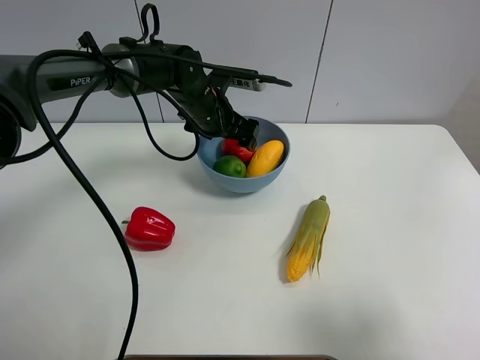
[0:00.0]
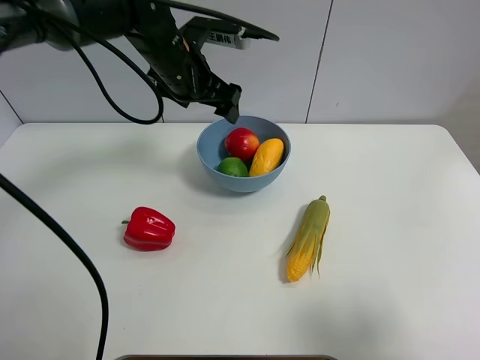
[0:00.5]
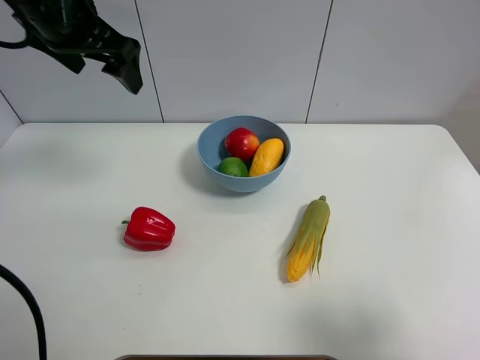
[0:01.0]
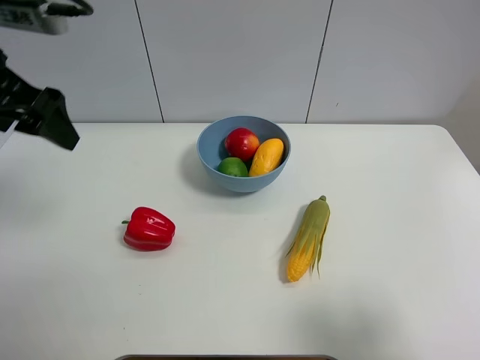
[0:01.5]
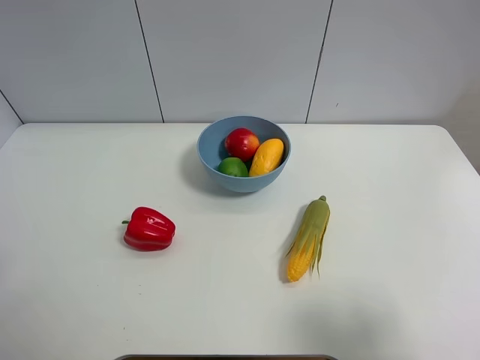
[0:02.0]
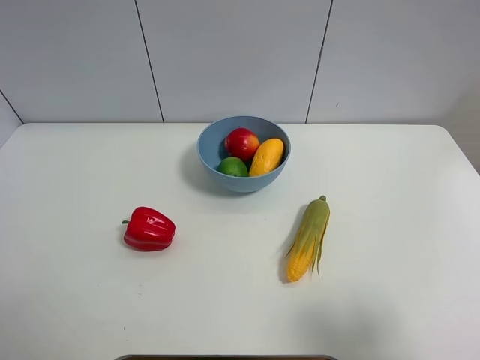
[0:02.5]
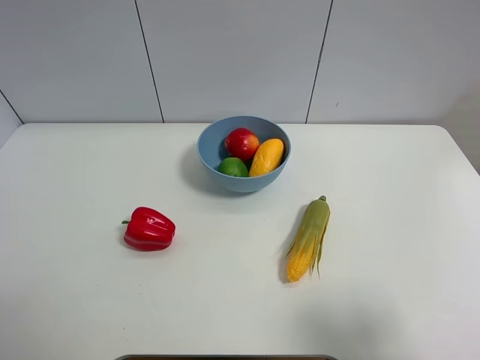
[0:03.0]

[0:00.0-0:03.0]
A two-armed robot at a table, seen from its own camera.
Task of the whole recording: Put the three fruits on the table into a bowl.
0:00.0 to 0:01.5: The left gripper heads to the left, upward and backward, covering roughly 35 cm.
0:01.5 to 0:03.0: The left gripper heads backward and downward, covering about 25 cm.
